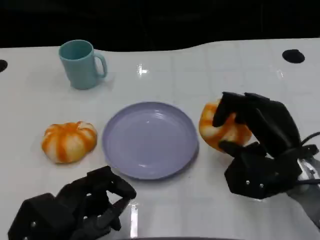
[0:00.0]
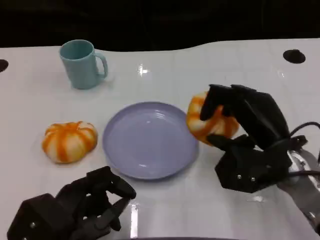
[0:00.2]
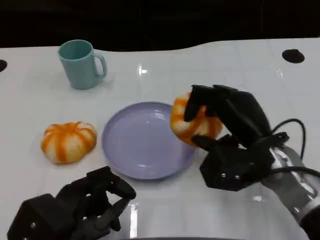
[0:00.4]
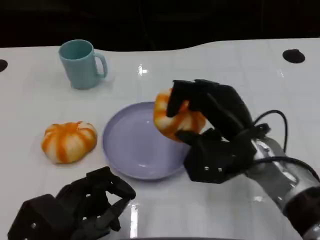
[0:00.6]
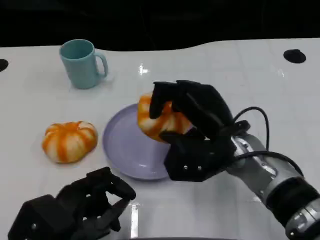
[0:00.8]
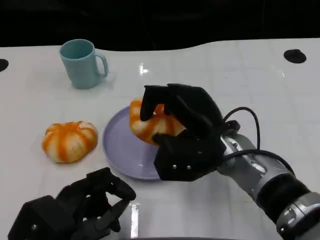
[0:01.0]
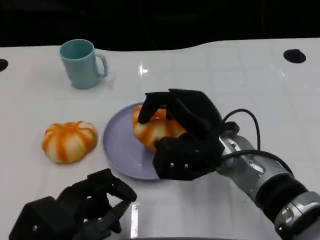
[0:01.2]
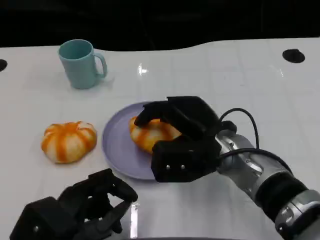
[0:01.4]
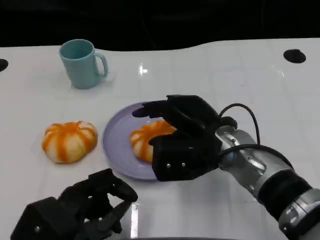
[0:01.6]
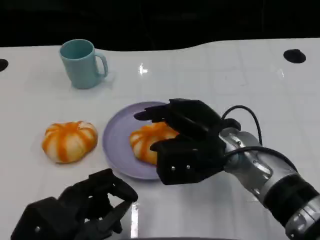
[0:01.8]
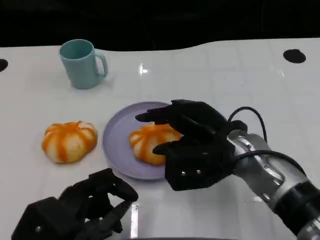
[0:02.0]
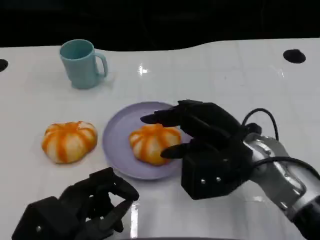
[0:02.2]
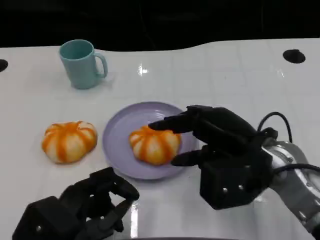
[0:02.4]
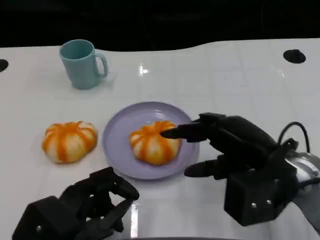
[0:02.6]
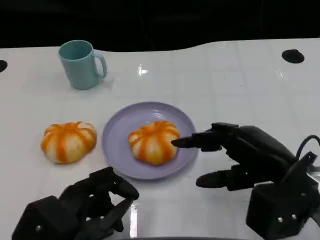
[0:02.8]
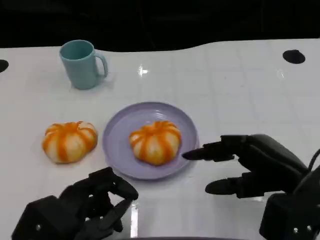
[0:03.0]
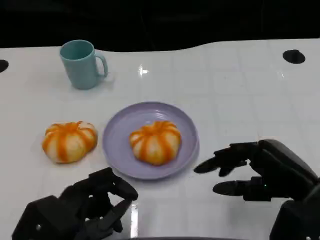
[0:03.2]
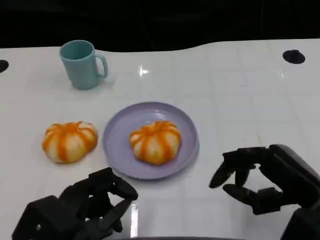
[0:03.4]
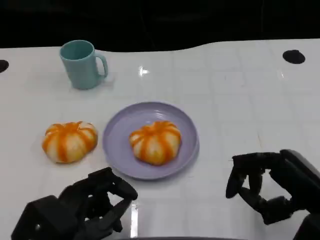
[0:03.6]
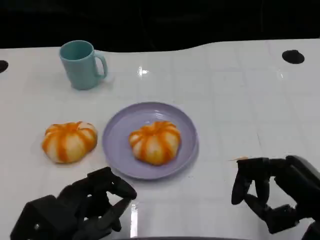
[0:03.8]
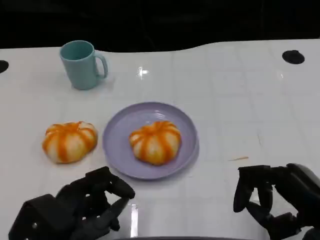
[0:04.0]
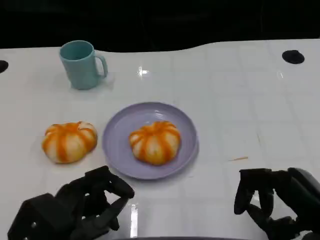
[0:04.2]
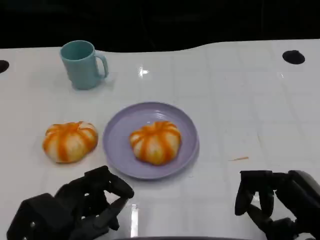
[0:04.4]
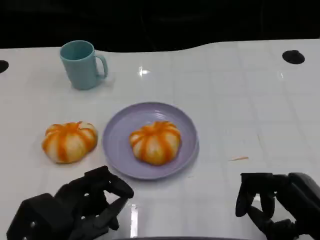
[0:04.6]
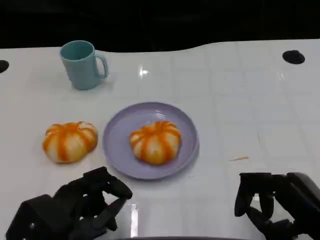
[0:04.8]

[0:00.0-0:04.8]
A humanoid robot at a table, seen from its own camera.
Task of the whole recording: Grasp the bread from the table and place it into the plate.
0:00.0 to 0:01.6: The right hand travels to the left by approximately 10 cm.
0:01.6 to 0:03.2: The right hand heads to the right and backward, covering roughly 15 cm.
0:03.2 to 0:04.8: The right hand moves approximately 5 cm.
